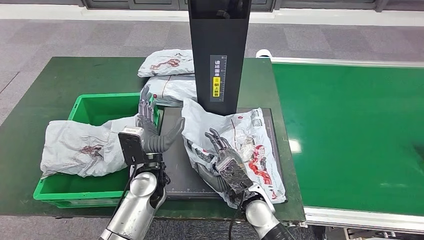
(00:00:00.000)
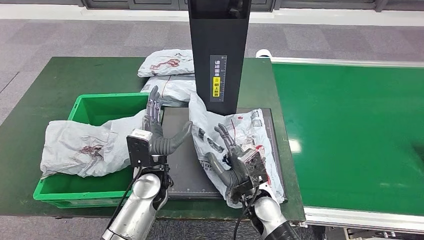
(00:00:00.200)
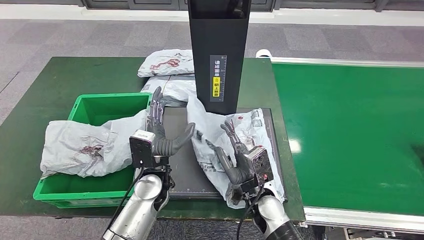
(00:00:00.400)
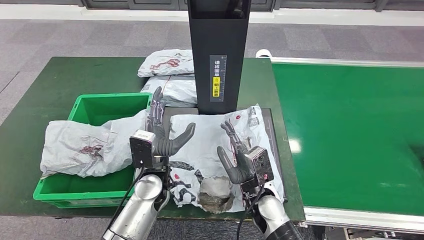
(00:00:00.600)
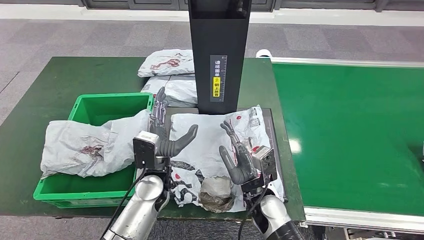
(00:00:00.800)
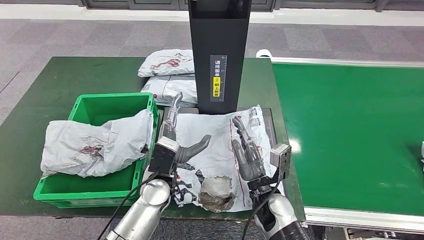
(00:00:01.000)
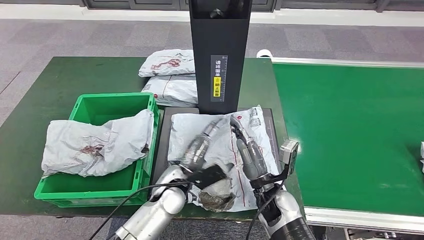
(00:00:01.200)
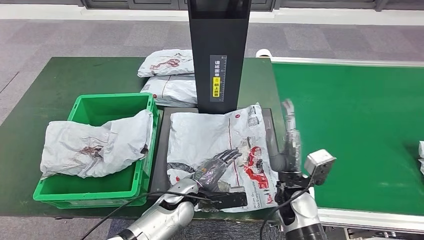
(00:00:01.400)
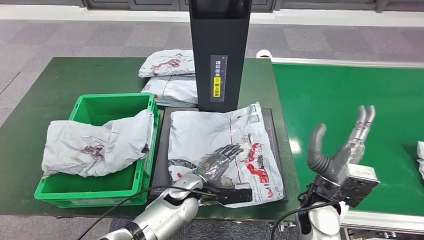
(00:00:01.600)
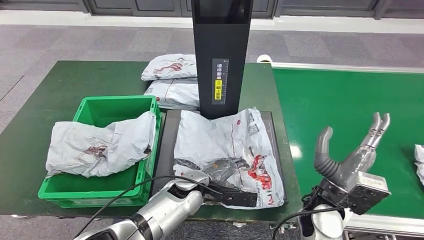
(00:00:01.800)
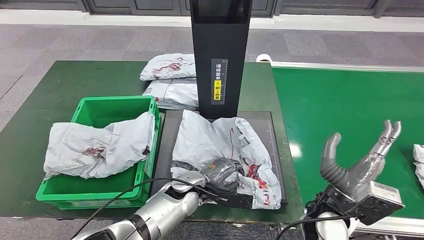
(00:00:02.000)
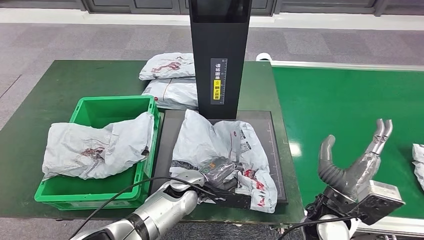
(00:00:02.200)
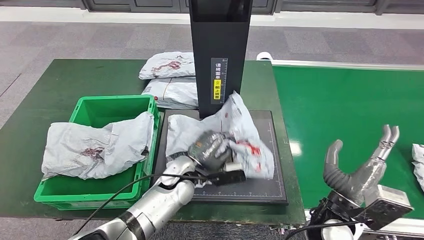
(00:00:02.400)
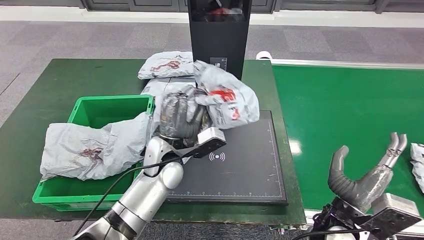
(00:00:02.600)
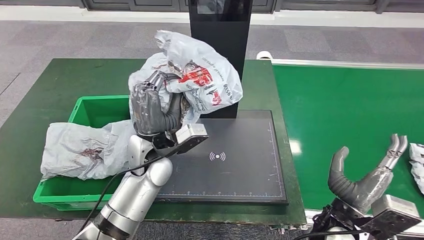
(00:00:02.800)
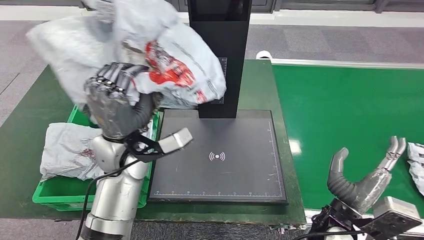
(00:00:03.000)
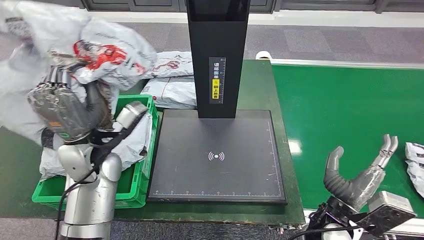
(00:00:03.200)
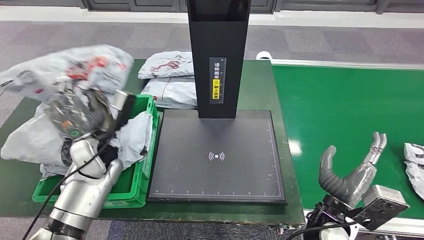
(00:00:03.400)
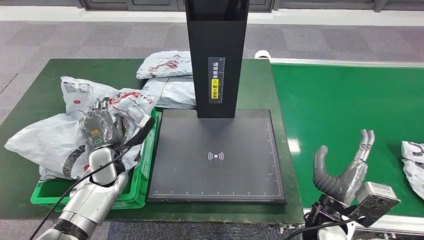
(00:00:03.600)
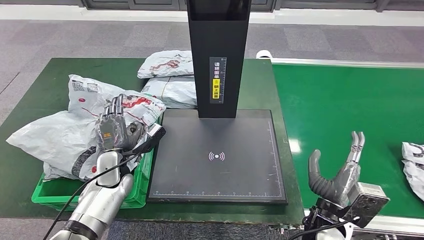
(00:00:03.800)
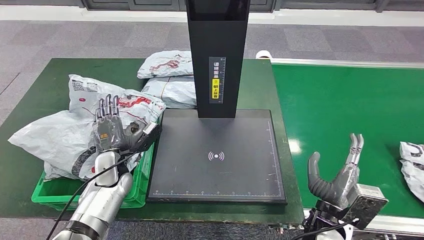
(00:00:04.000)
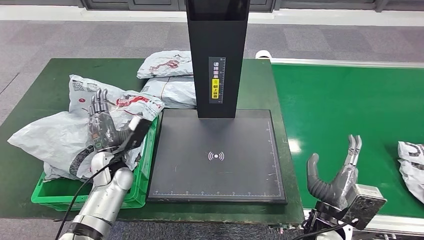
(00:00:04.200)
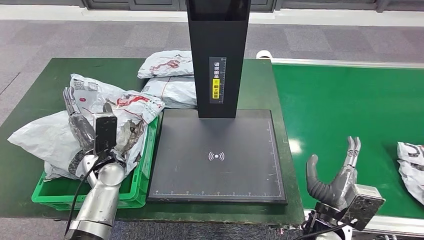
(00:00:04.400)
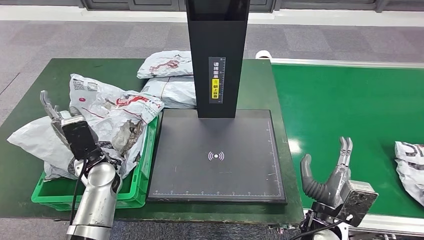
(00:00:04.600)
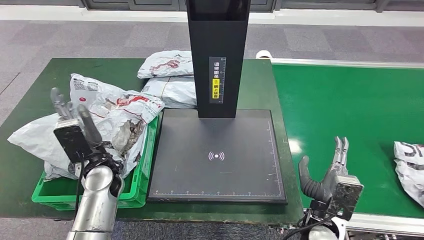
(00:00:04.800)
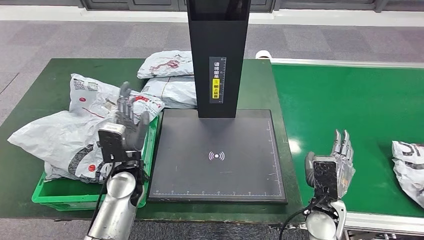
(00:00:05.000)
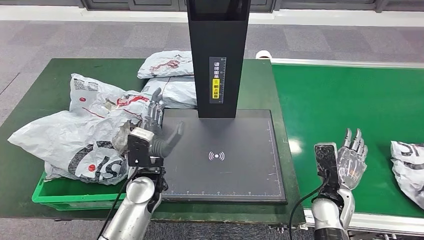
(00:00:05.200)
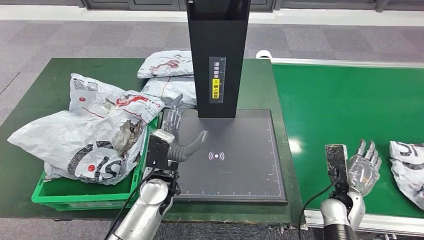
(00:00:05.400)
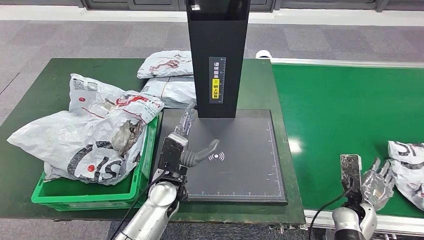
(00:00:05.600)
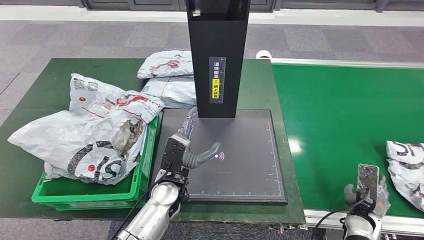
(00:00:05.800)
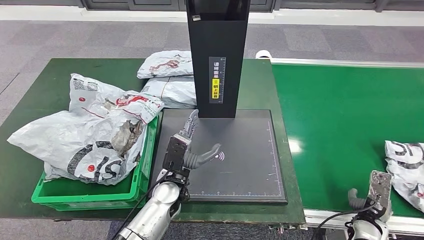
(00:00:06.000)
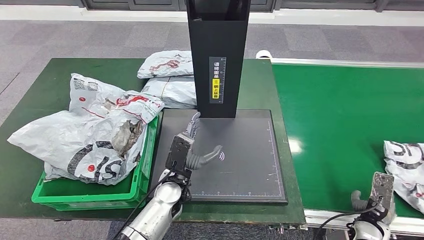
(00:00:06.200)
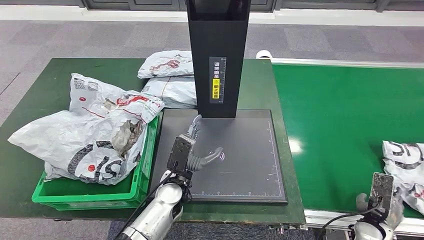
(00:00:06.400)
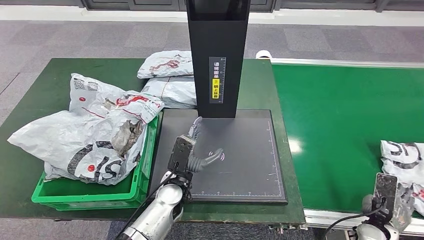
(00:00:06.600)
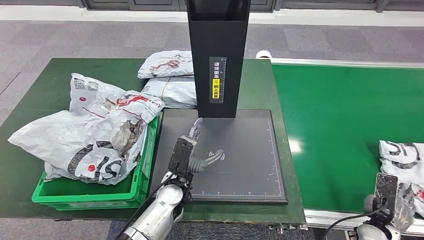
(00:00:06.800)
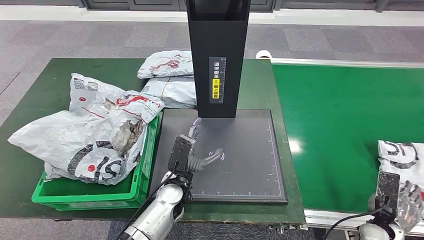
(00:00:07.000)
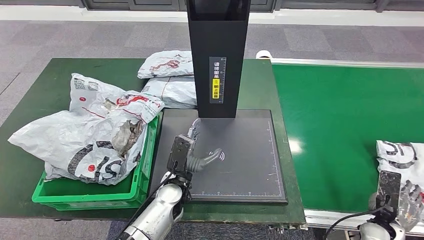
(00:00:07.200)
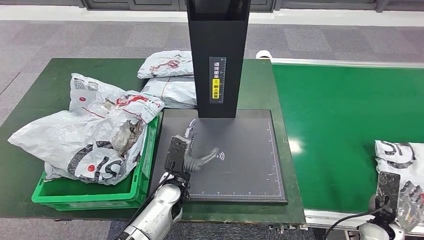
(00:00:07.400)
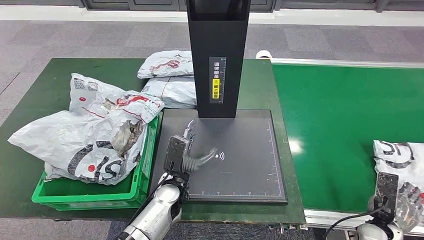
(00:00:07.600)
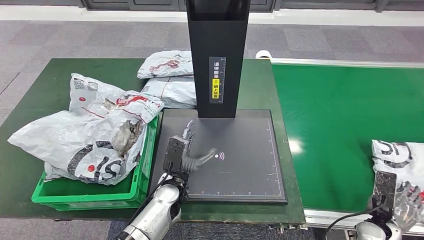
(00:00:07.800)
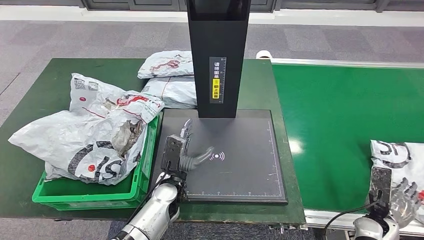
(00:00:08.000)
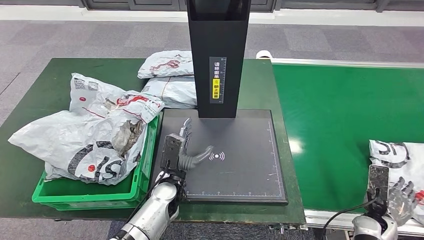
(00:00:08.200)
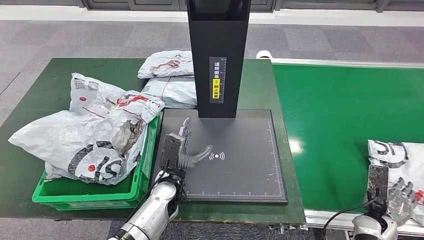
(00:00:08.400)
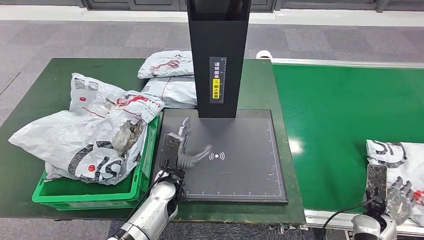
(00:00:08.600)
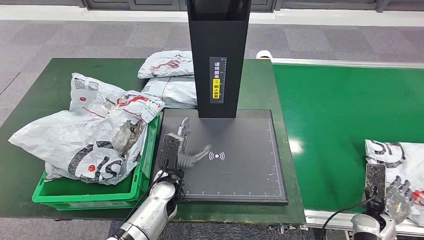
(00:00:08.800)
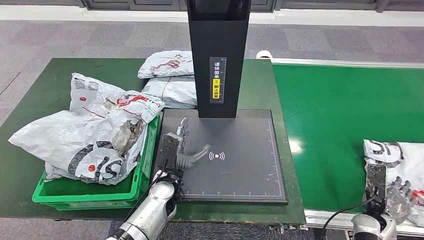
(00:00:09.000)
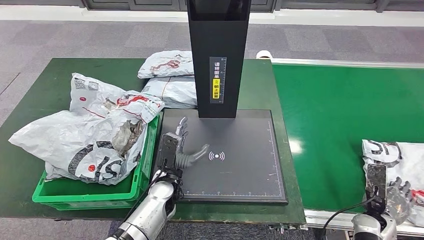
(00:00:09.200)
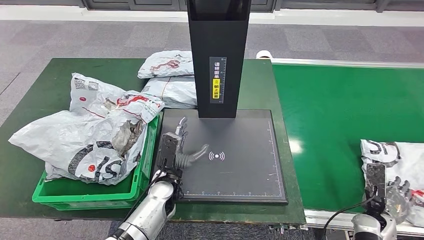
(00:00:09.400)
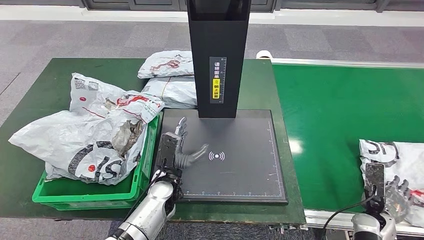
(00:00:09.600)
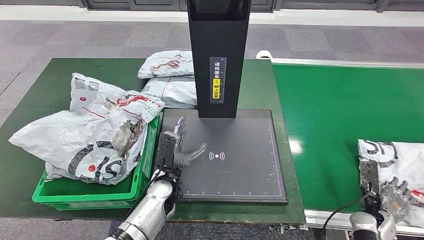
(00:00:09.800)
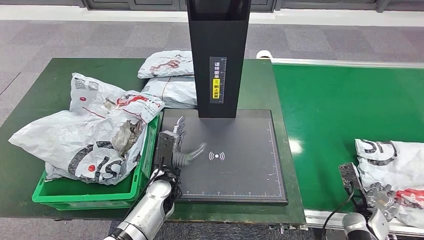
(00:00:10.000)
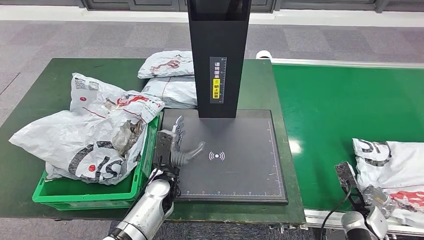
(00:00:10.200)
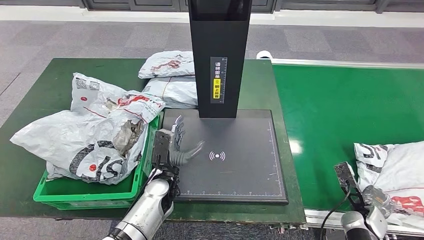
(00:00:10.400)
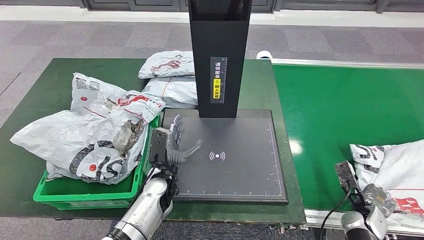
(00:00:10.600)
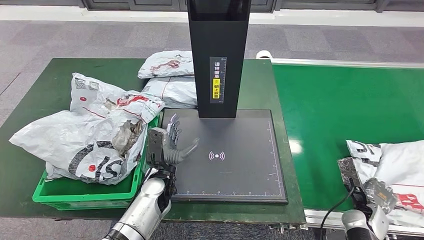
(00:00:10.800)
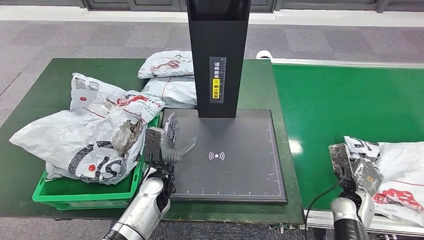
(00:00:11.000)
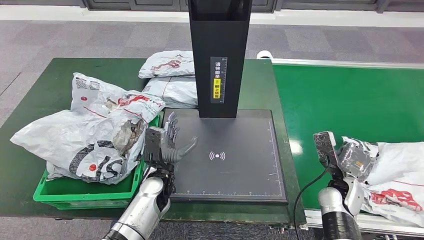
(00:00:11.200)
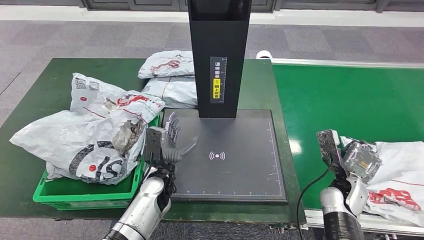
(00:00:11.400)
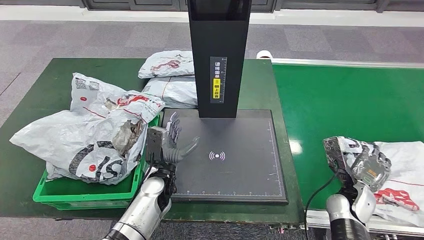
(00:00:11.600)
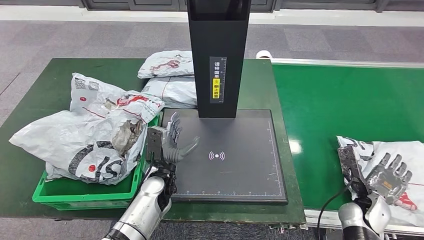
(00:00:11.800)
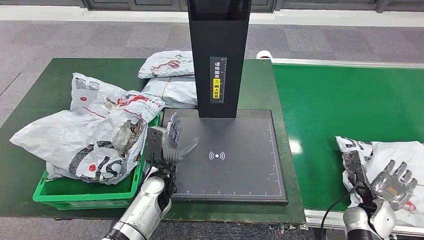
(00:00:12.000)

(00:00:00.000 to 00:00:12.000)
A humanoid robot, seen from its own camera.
Step, 00:00:00.800 - 00:00:02.800: Pick up the parcel from the inbound machine.
Step, 00:00:03.200 - 00:00:04.800: Place the parcel into the delivery box.
00:00:04.400 - 00:00:06.000: The left hand travels to the right by roughly 15 cm, while the right hand heads to the right and downward, covering roughly 20 cm.
00:00:06.000 - 00:00:07.600: The hands move only a little.
00:00:07.600 - 00:00:09.000: There are only small adjustments of the hands.
00:00:10.400 - 00:00:12.000: The right hand goes to the left and returns, some 10 cm each way.

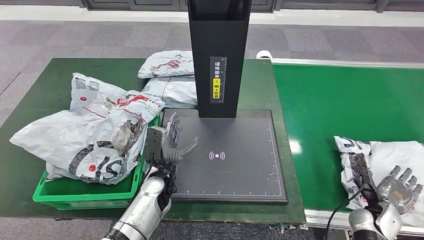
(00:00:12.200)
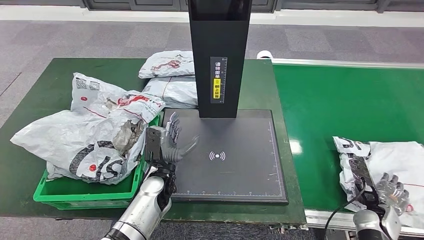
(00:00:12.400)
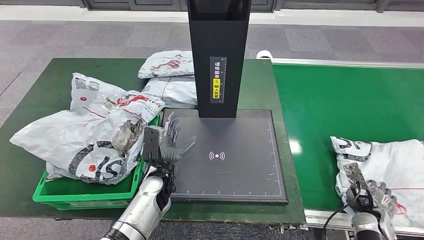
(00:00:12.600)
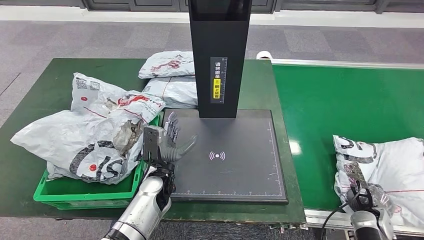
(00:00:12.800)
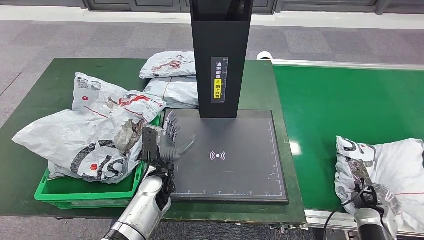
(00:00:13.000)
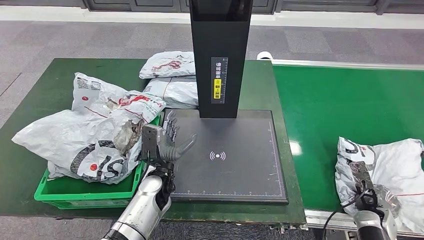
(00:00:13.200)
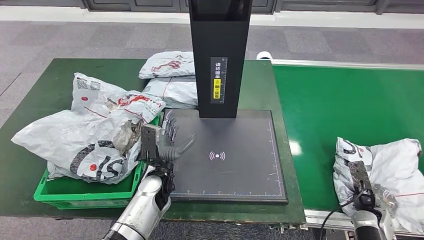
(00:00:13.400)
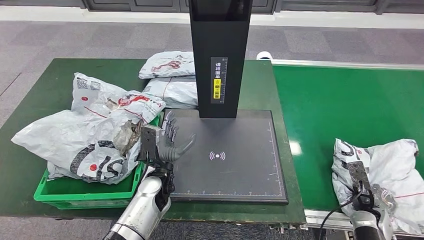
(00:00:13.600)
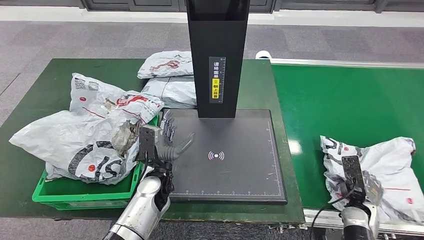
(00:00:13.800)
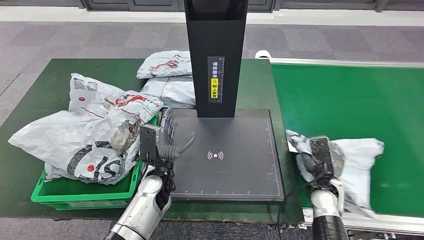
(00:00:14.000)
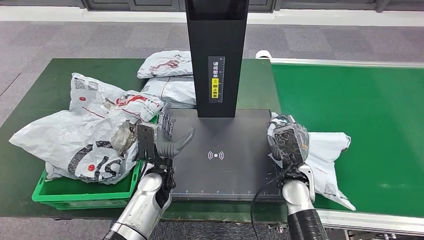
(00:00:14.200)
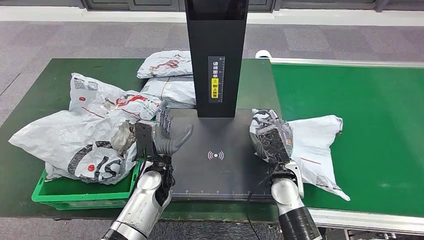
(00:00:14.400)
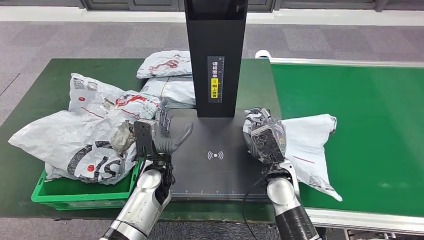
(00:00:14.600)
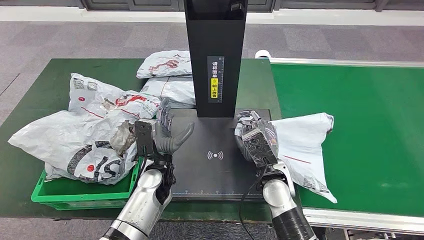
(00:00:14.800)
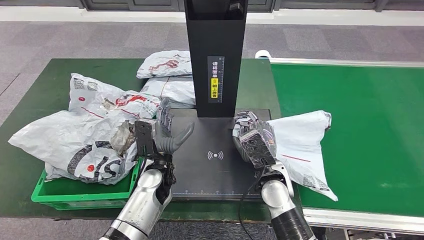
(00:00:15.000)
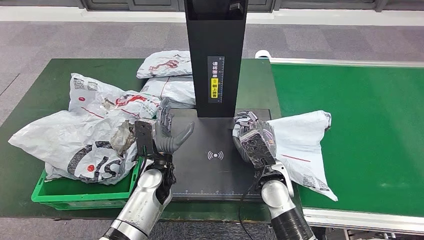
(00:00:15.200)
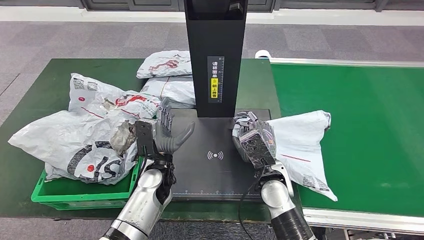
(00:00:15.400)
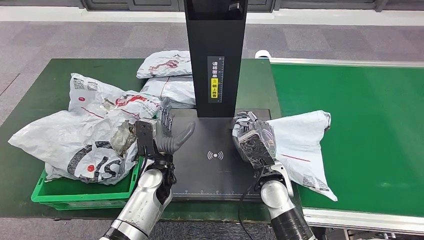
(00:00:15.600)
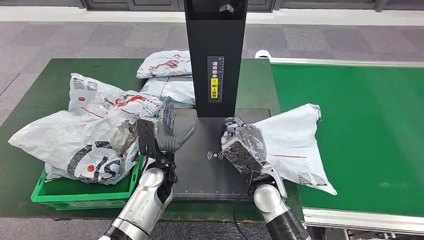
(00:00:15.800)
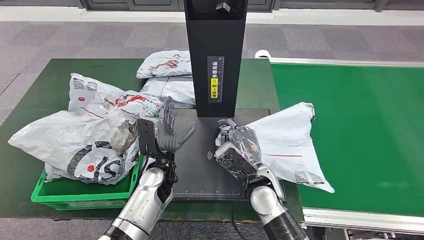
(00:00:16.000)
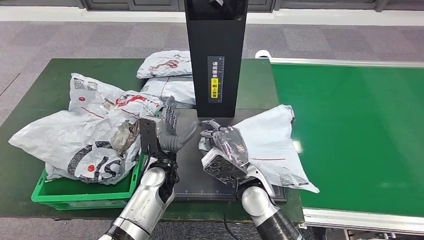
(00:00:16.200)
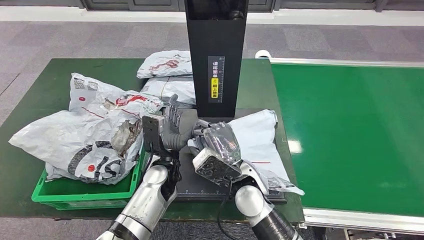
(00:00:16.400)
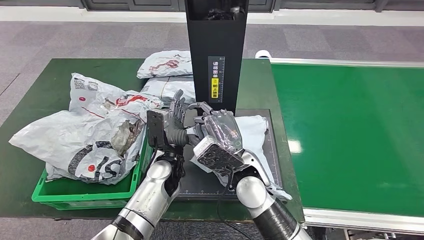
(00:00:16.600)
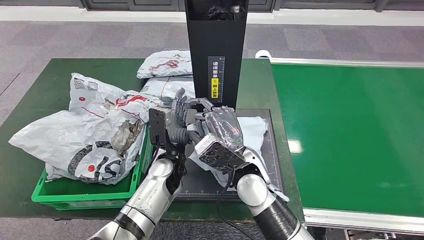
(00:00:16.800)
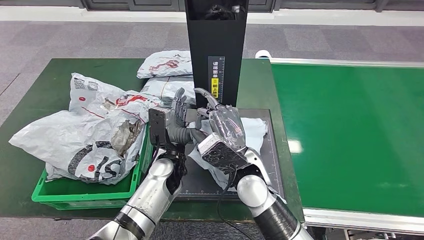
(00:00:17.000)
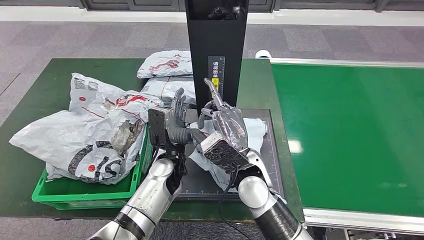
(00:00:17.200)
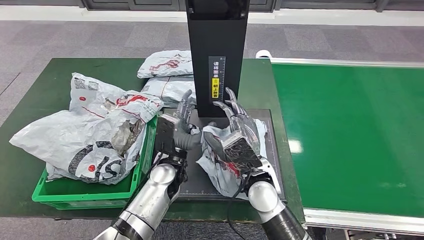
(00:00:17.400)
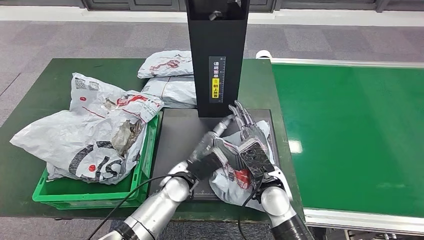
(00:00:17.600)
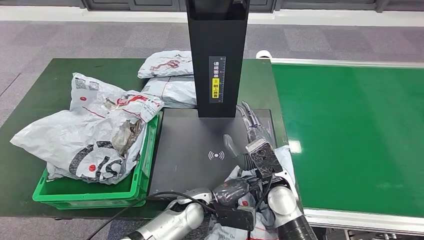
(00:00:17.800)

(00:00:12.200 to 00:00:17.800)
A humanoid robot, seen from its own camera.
Step, 00:00:12.200 - 00:00:14.400: Pick up the parcel from the conveyor belt.
Step, 00:00:14.600 - 00:00:17.000: Place the parcel onto the inbound machine.
00:00:15.000 - 00:00:16.400: The right hand heads to the left, covering approximately 5 cm.
00:00:16.400 - 00:00:17.800: The left hand shifts about 10 cm backward, downward and to the right. The right hand moves to the right, about 5 cm.
